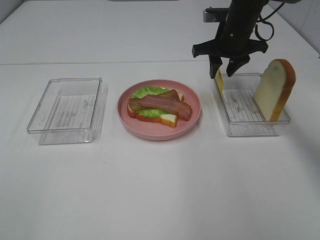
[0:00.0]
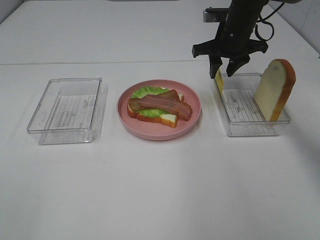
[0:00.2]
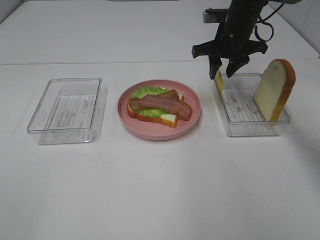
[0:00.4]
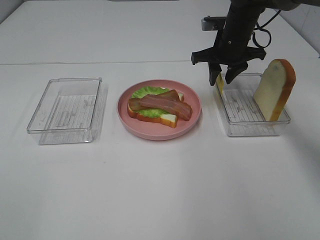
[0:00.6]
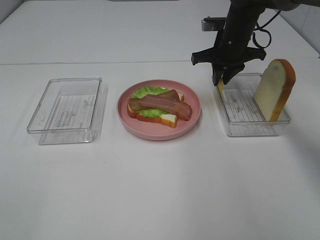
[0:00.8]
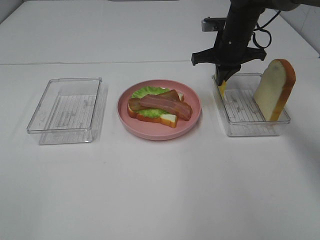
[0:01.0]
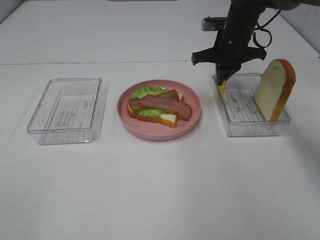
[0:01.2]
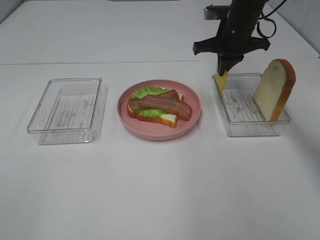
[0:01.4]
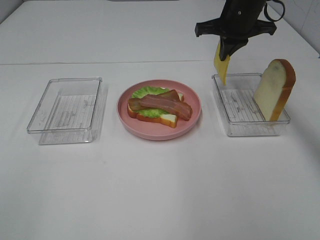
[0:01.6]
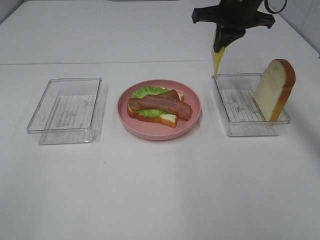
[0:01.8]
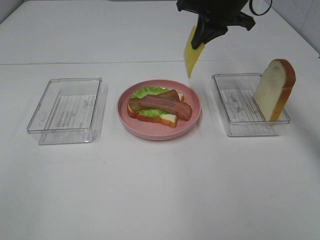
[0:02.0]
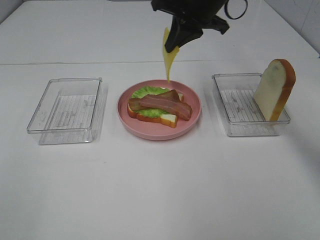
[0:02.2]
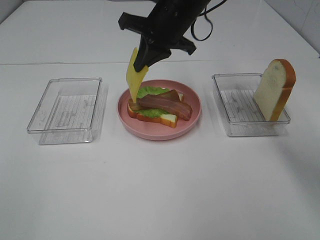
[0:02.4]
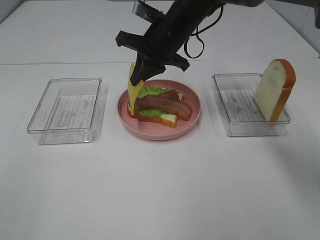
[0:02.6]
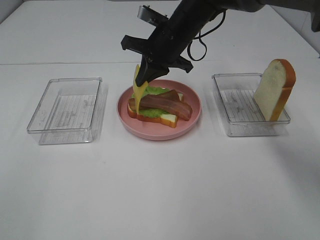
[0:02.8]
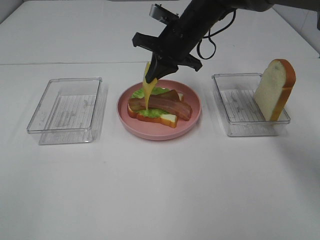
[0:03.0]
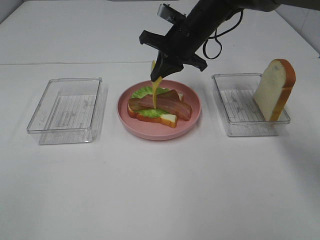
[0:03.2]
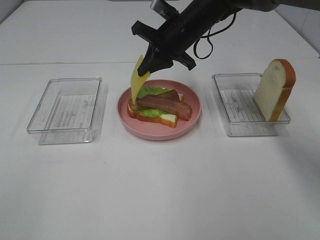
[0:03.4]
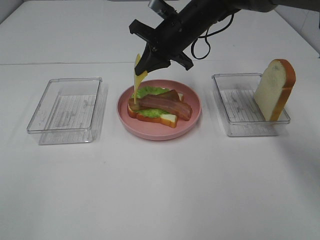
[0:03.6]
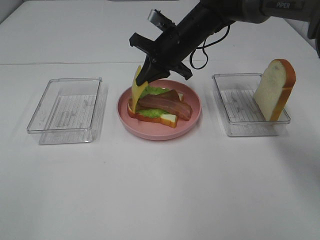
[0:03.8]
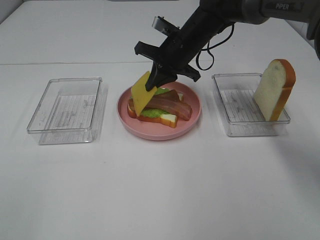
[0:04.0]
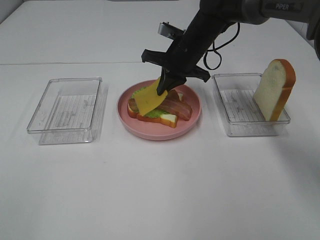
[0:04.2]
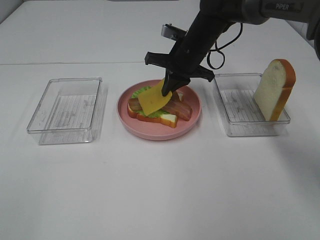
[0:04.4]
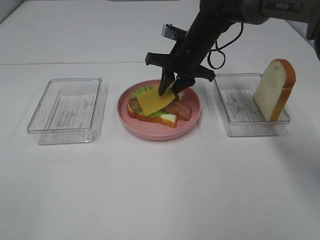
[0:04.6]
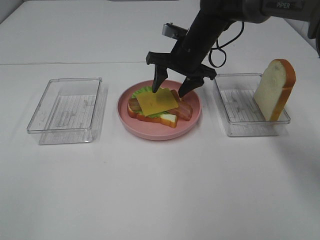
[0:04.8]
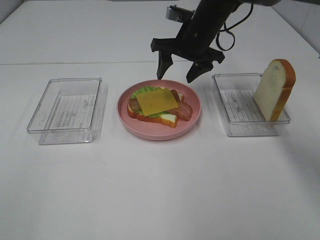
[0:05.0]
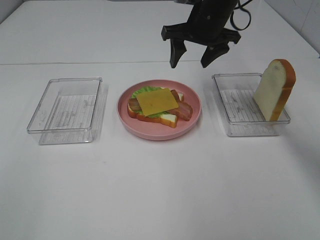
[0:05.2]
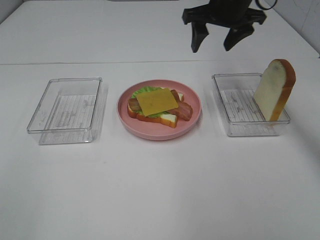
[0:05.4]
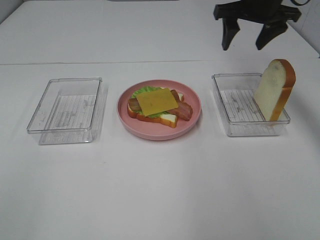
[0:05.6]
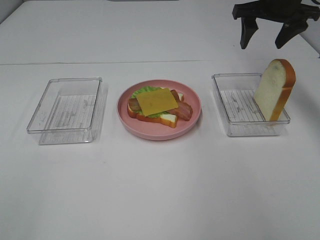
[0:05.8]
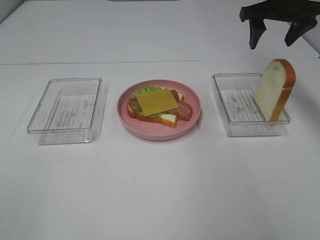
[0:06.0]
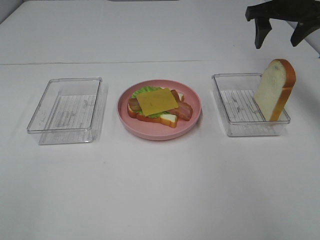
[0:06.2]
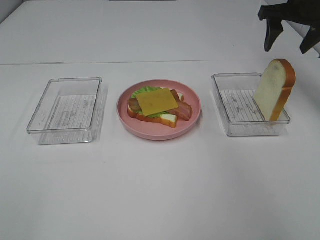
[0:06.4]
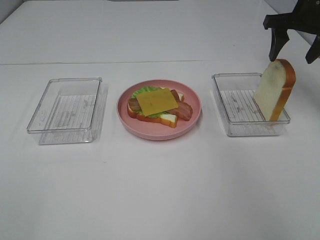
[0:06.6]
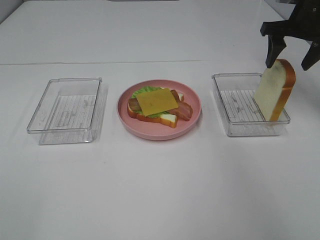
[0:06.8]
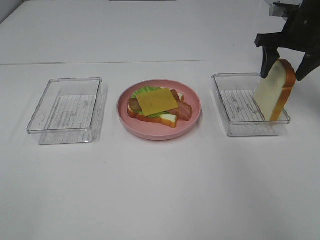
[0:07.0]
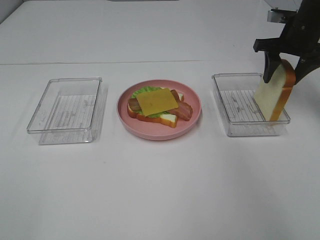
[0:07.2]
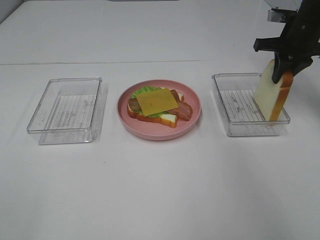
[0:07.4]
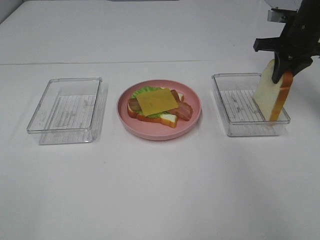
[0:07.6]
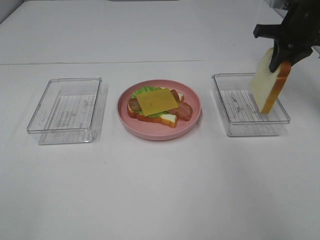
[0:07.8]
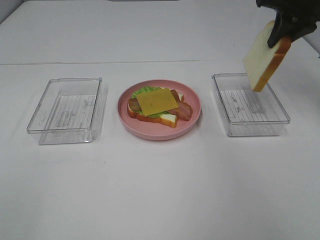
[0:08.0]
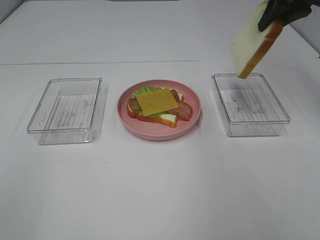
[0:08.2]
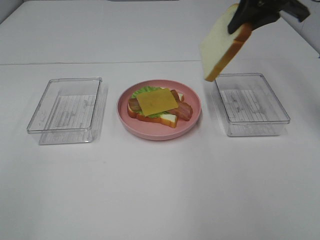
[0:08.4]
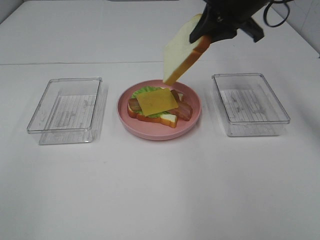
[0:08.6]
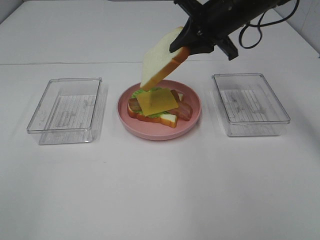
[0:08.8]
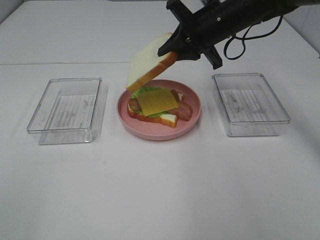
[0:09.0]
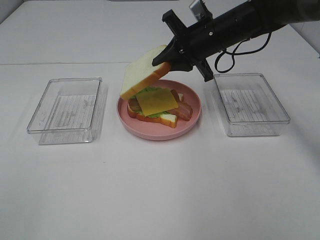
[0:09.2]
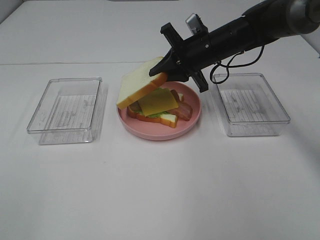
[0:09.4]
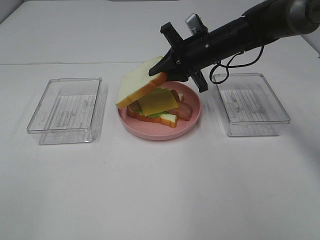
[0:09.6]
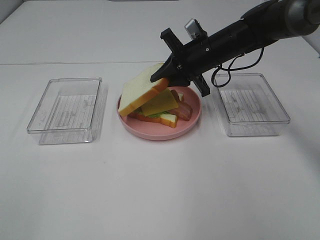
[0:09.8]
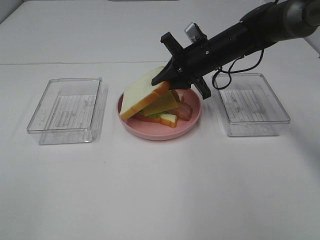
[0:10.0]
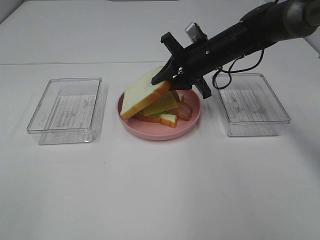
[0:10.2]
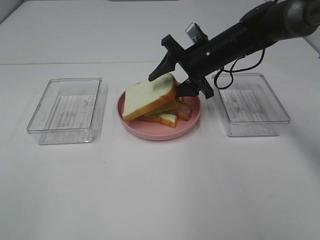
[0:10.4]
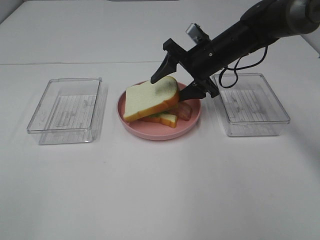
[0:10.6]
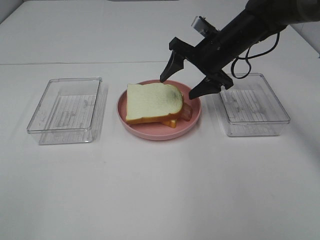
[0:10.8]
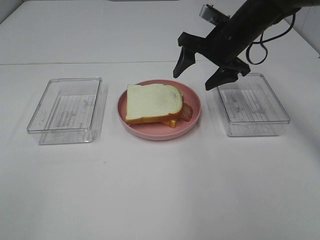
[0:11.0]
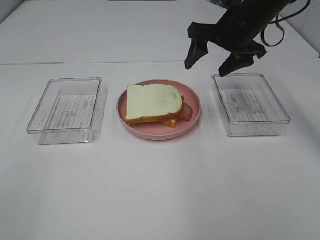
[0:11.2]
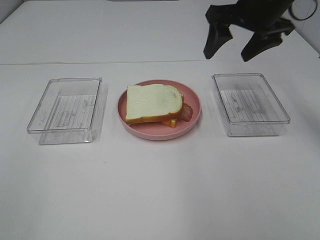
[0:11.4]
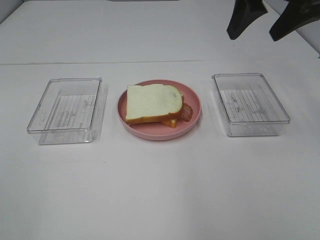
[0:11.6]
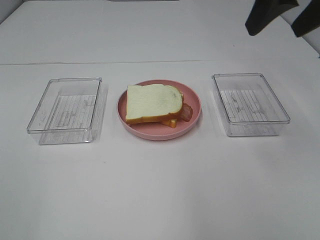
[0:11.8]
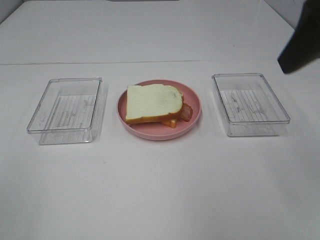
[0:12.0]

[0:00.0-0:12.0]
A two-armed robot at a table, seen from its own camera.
Task of the whole recording: Make sandwiches.
Step, 0:01.0 to 0:05.2: Right hand:place the cheese slice on top of the bacon.
Step, 0:05.4 to 0:07.4: Right hand:grab the bread slice.
Step, 0:07.6 to 0:11.2: Right hand:place the bread slice on the cheese slice.
0:00.0 to 0:01.6: The right gripper shifts roughly 5 cm upward, and closes up.
0:01.6 to 0:03.0: The right gripper shifts about 10 cm to the left and downward.
0:03.0 to 0:04.4: There are only small adjustments of the grippers.
0:04.4 to 0:06.0: The right gripper shifts about 20 cm to the right and upward, and opens its fingers.
0:06.0 to 0:07.6: The right gripper moves downward, approximately 5 cm, and closes.
0:07.6 to 0:09.0: The right gripper goes about 15 cm to the left.
0:09.0 to 0:10.4: The right gripper travels downward by roughly 5 cm, and opens its fingers.
0:10.4 to 0:12.0: The right gripper moves backward, upward and to the right, some 35 cm.

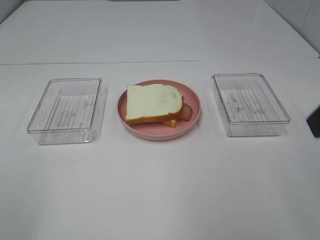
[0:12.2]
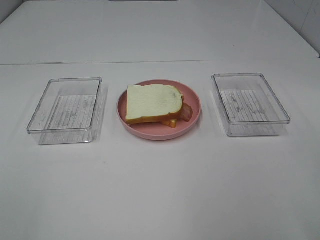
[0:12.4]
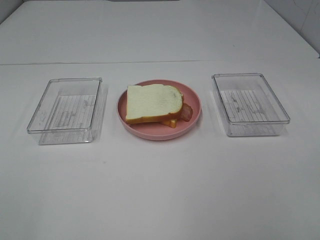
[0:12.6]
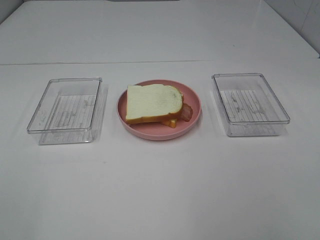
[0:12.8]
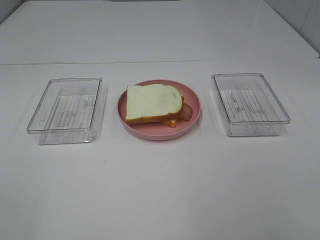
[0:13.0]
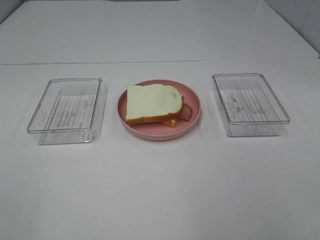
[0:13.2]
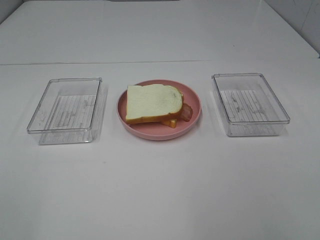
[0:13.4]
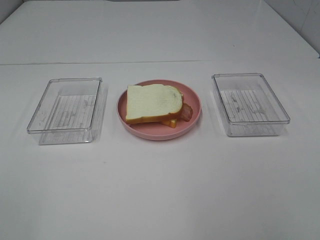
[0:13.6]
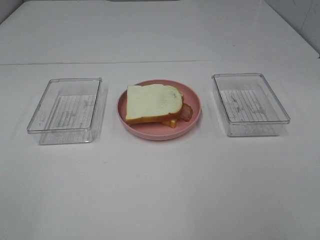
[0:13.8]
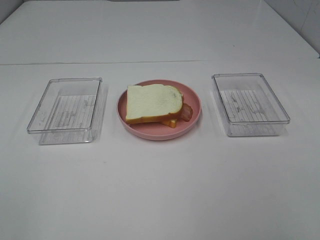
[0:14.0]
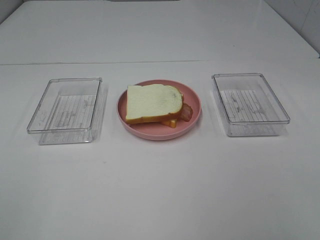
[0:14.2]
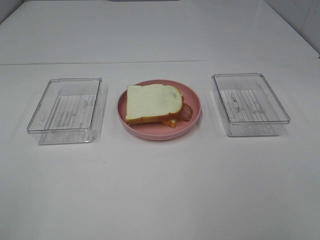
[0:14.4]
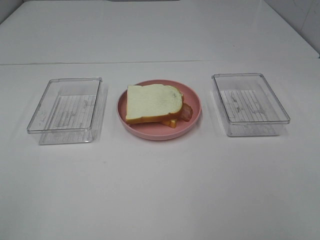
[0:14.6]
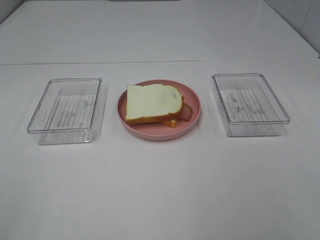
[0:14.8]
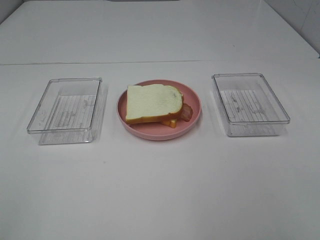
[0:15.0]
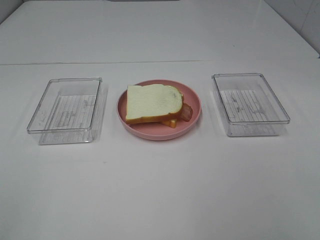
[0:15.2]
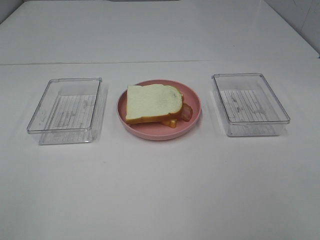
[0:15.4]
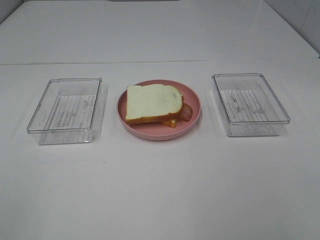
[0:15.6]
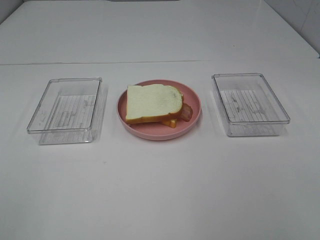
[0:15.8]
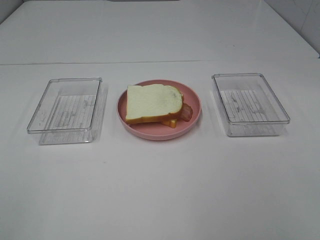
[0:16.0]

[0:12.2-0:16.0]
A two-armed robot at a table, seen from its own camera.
Task of the whole recording: Make sandwiches.
0:14.8 to 0:16.0: The two grippers keep their place.
